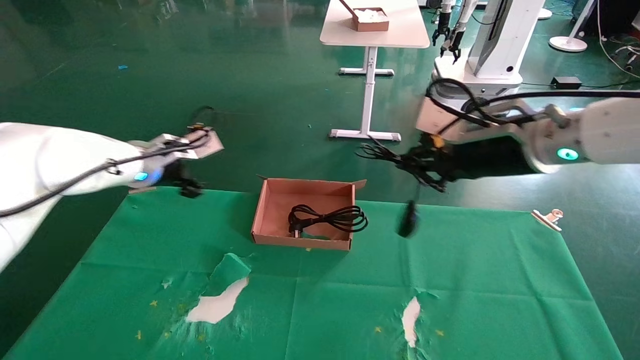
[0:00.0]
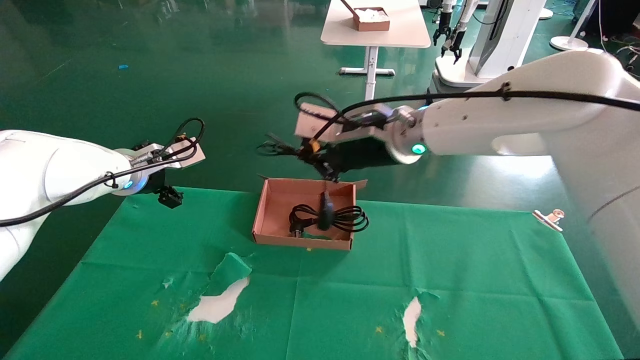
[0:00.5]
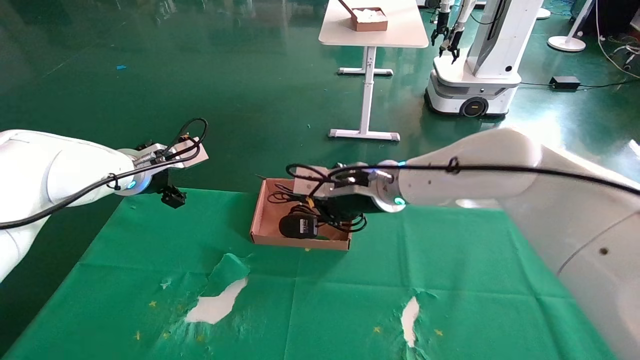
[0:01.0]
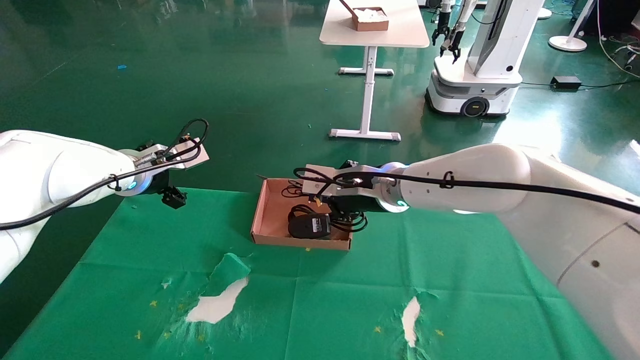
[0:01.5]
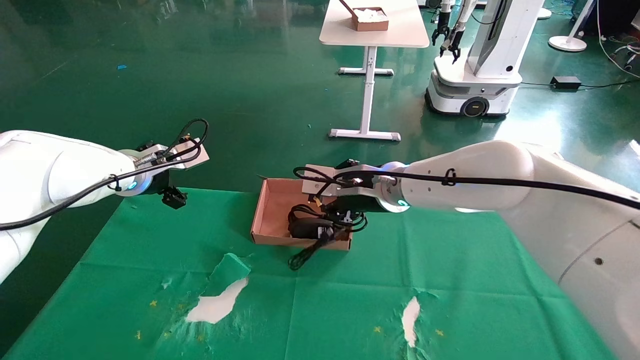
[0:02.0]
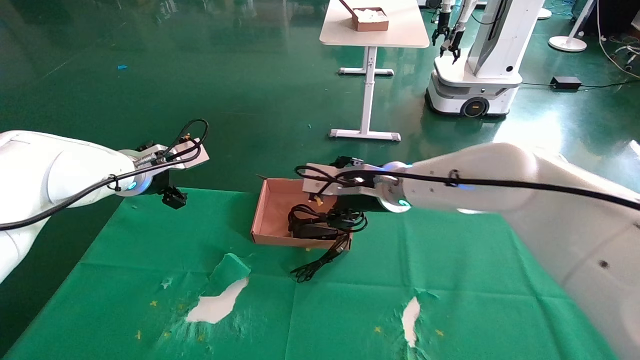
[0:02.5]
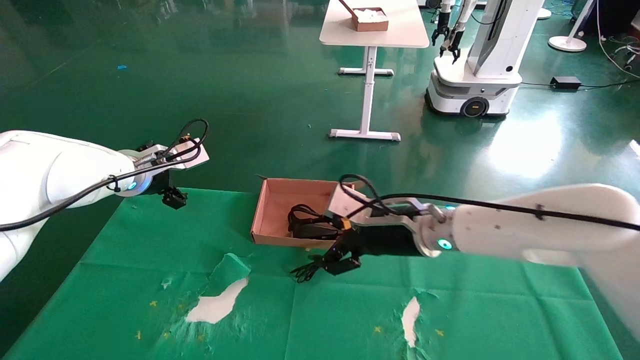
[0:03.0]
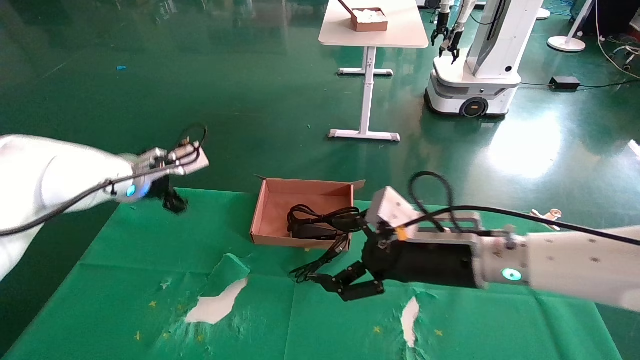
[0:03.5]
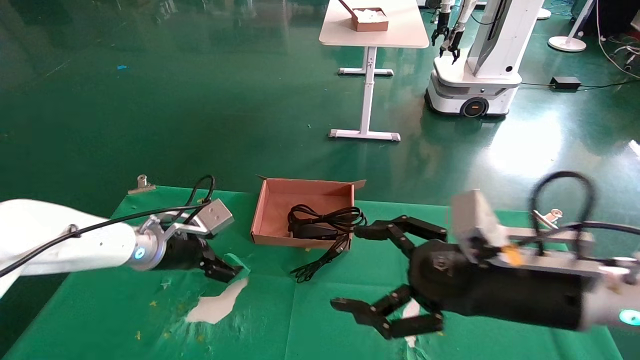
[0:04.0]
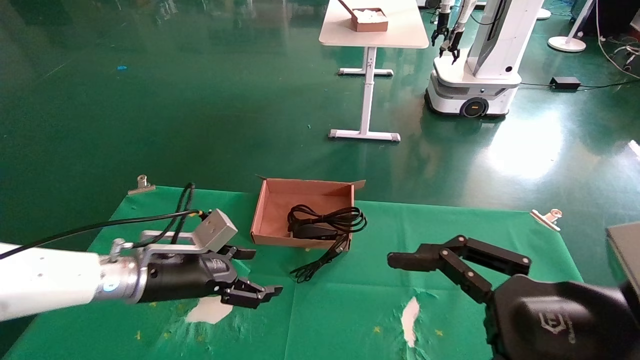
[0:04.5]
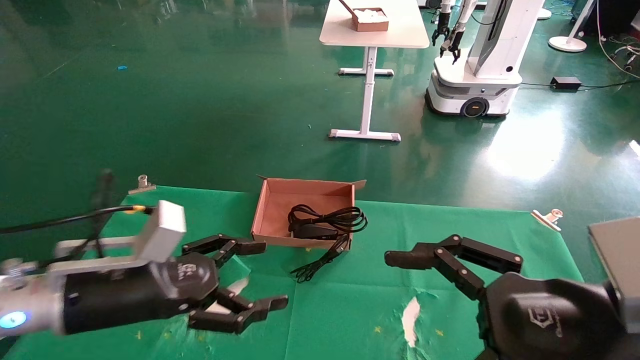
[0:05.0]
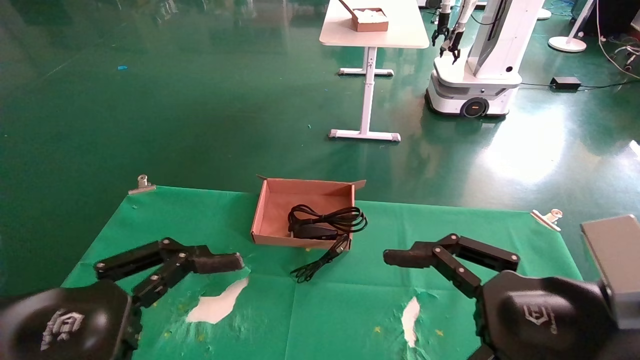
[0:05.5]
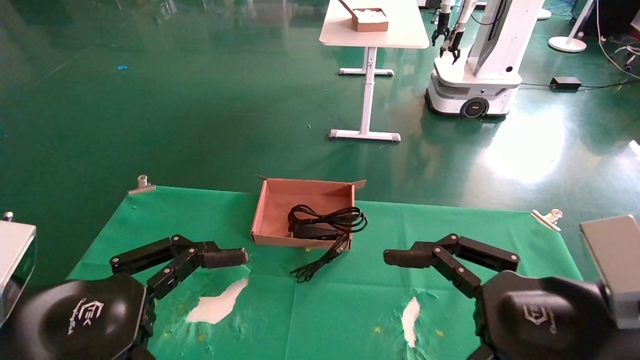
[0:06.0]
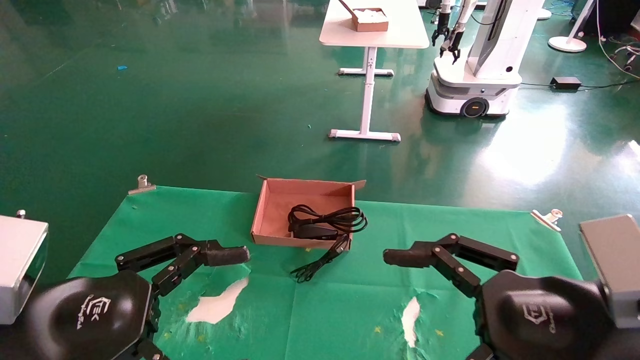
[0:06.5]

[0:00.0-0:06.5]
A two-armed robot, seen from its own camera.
Step, 0:00.0 to 0:02.5: Place the mouse and power cord into the box.
0:00.0 to 0:02.0: The right gripper travels to the left, forward and downward by about 20 cm.
0:02.0 to 0:04.5: The left gripper travels downward and backward by approximately 15 cm; the right gripper goes roughly 30 cm backward and to the right, and opens up.
0:04.5 to 0:06.5: The left gripper shifts some 20 cm backward.
